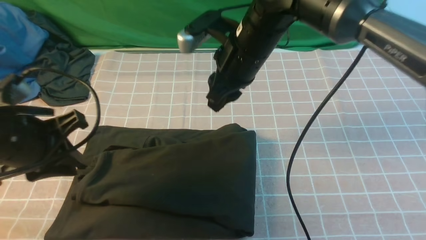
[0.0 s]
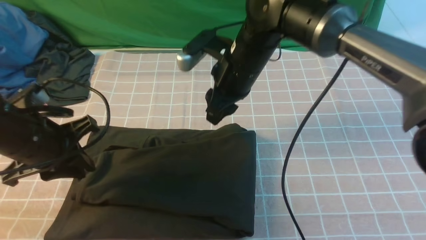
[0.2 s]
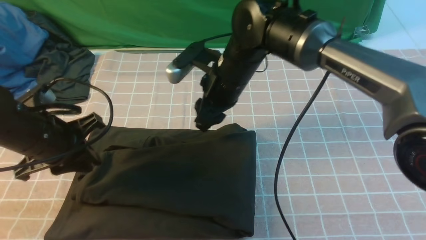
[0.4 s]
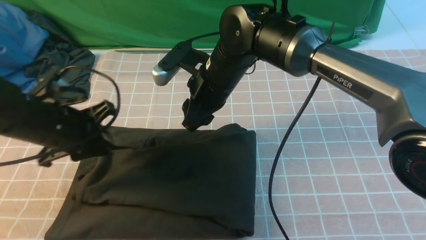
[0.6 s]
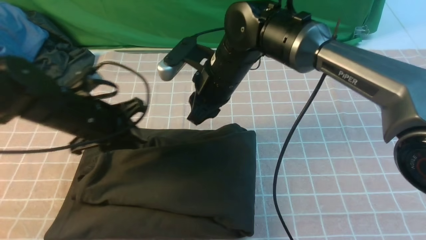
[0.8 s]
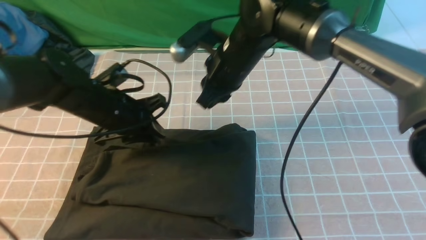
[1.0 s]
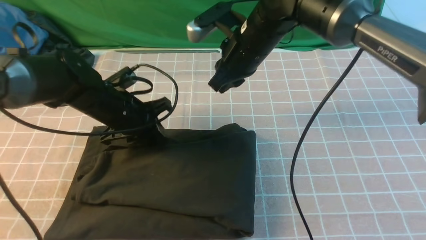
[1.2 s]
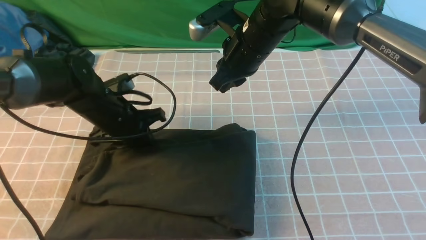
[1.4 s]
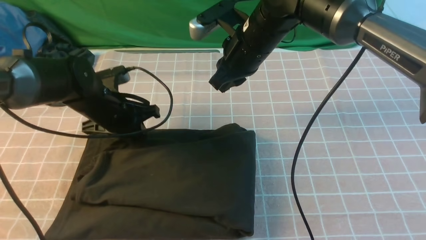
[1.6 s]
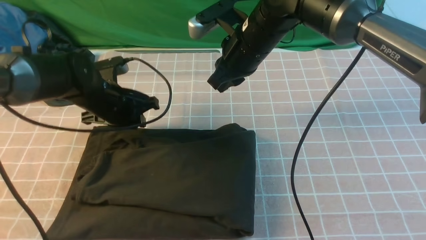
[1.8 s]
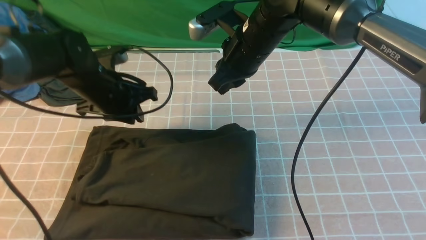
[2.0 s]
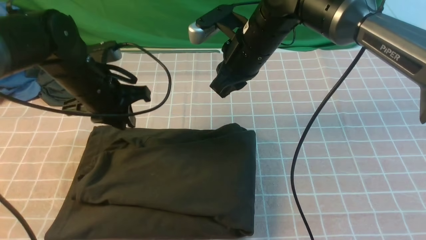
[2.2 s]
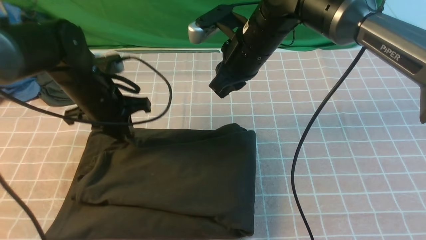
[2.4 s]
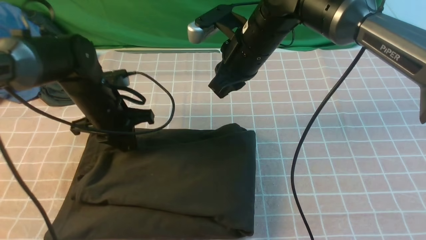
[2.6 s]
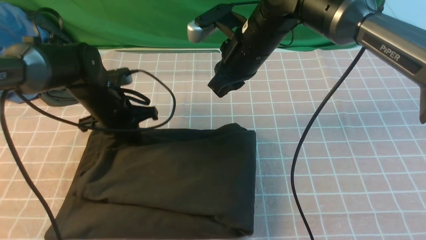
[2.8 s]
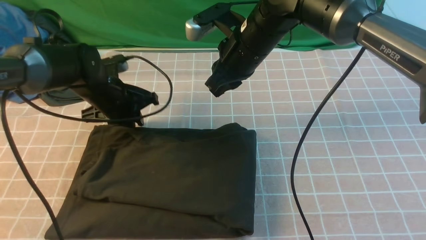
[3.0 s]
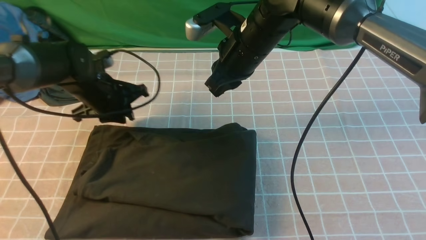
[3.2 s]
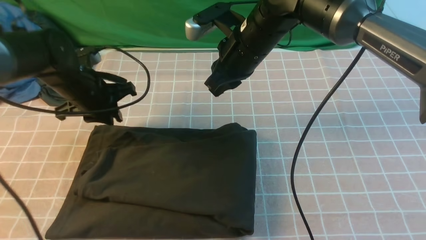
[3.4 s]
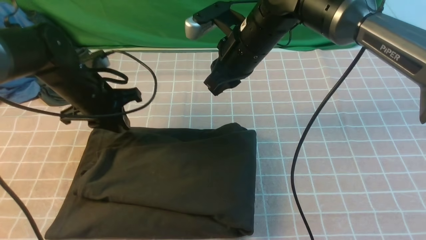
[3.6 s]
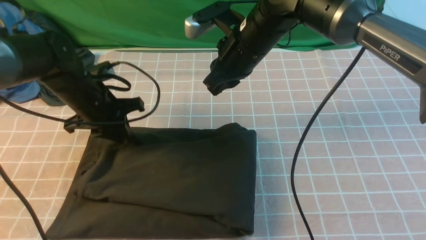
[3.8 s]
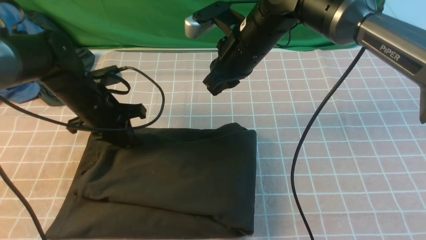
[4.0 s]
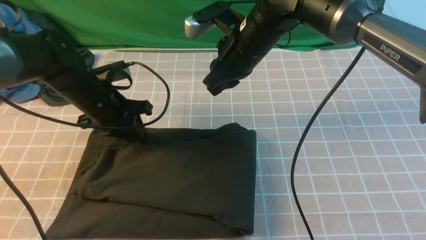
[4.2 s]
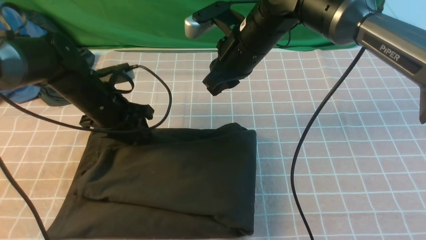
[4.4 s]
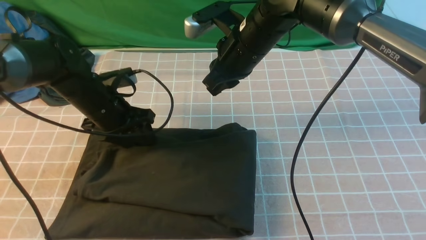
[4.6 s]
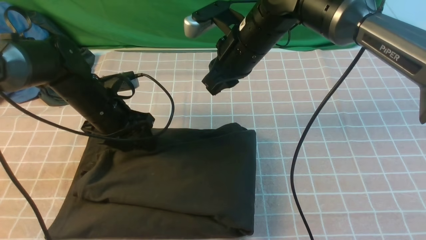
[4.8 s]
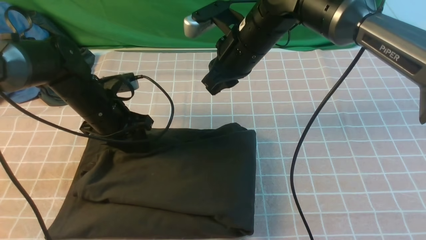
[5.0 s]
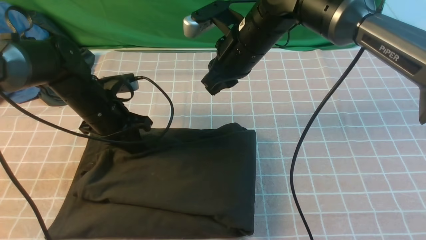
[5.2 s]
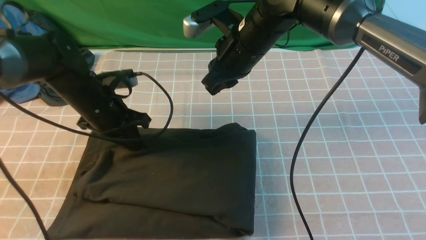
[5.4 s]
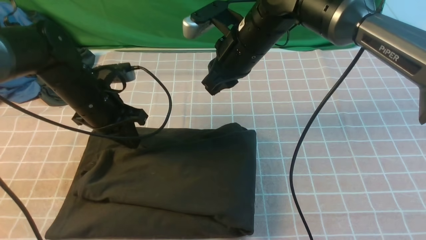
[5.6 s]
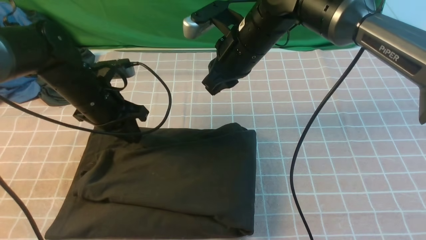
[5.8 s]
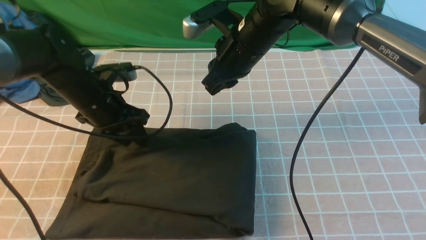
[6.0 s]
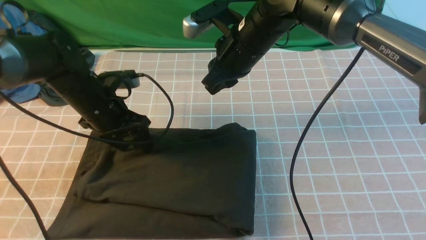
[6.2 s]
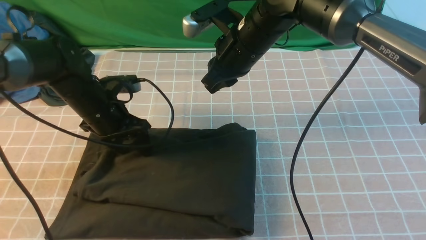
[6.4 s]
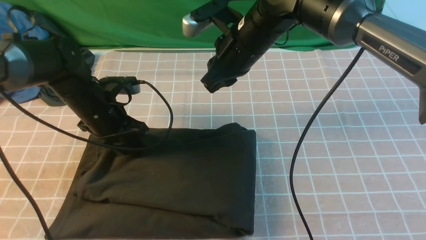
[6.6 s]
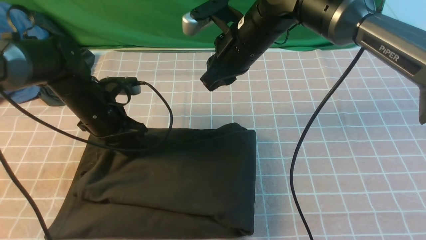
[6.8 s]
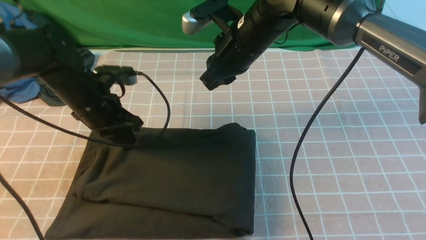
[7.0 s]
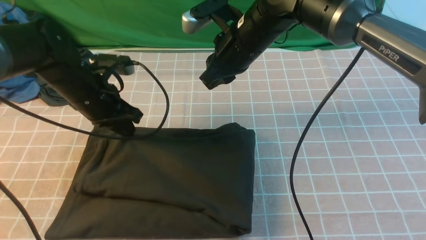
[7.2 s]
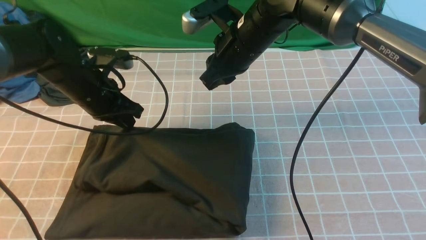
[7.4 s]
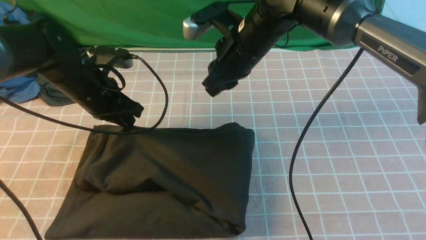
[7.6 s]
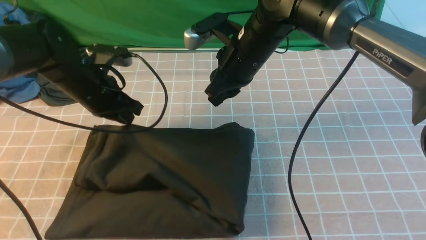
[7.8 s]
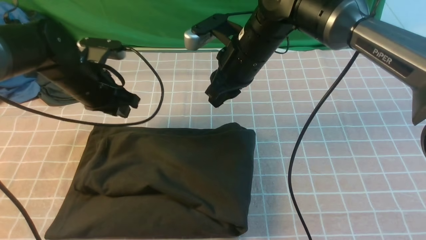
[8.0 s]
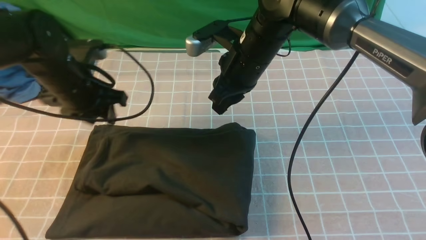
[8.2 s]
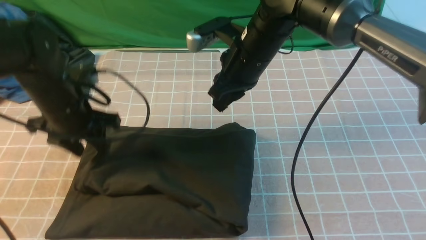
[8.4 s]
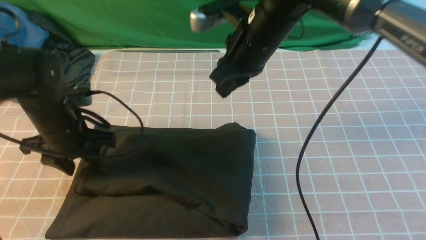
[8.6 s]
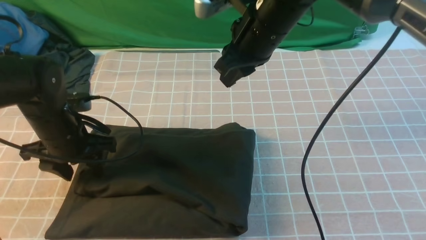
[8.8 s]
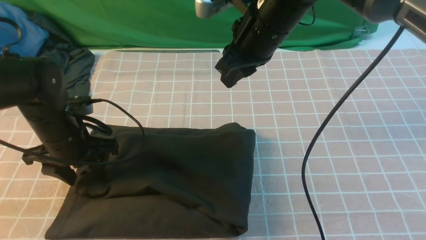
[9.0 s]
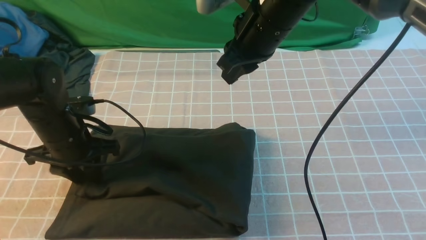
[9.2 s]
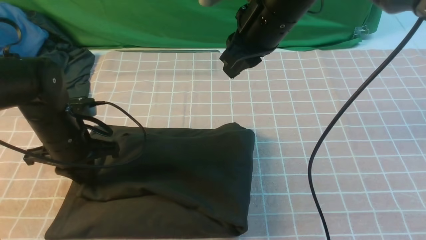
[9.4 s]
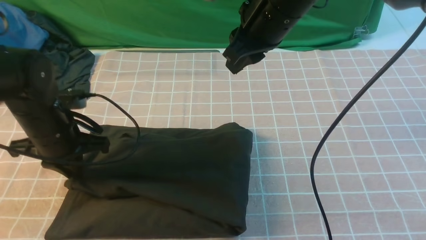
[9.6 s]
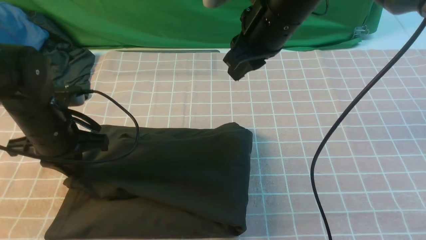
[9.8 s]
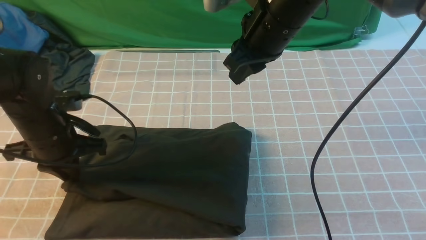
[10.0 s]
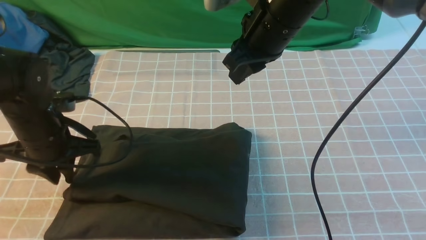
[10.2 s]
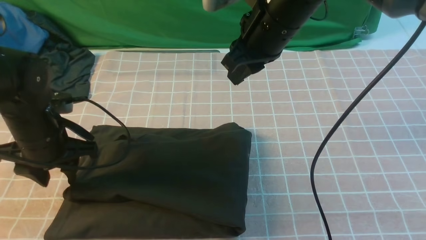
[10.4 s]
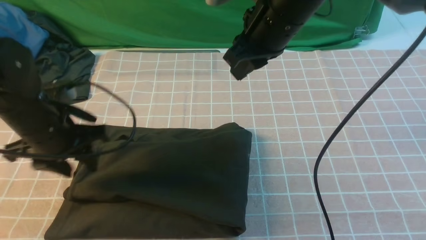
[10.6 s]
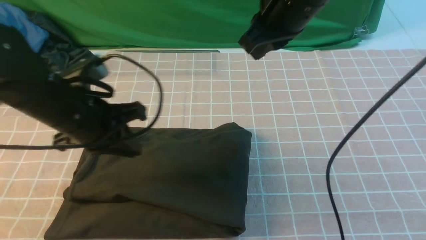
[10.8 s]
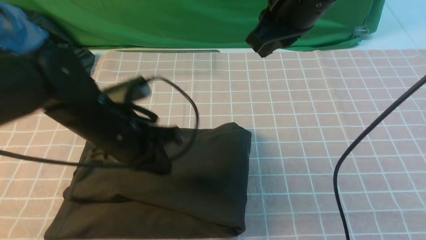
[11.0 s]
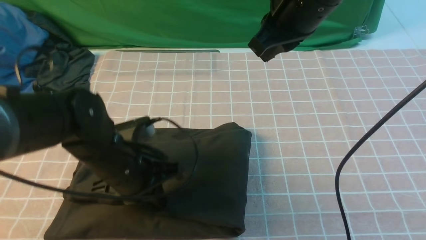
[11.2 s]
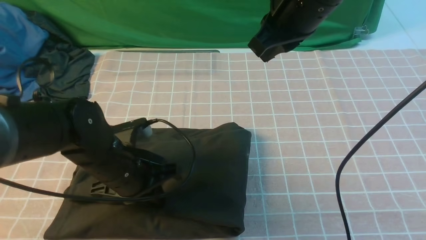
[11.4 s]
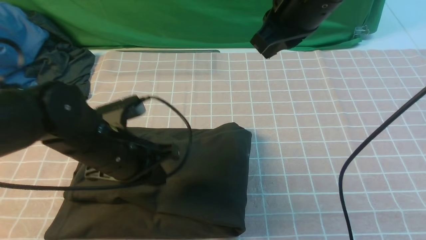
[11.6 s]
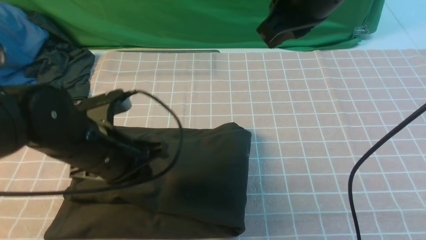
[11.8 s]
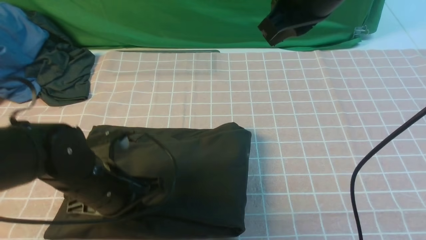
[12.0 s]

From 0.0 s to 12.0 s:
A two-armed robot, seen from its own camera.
From 0.0 s to 1.6 s: The left gripper moves forward and downward, some 20 cm.
From 1.6 s to 3.0 s: There are only small adjustments of the grippers.
From 3.0 s to 4.4 s: The left gripper opens.
From 4.4 s to 6.0 s: The left gripper closes, then opens again.
From 6.0 s to 7.6 s: The left gripper closes.
From 7.6 s to 9.0 s: The left gripper shifts roughly 5 cm backward, and opens its fingers; the right gripper heads upward, covering about 5 cm.
From 9.0 s to 10.4 s: The left gripper closes and opens again.
From 10.4 s to 12.0 s: The right gripper shifts roughly 5 cm upward, while the left gripper travels to the right and backward by about 10 cm, and closes up.

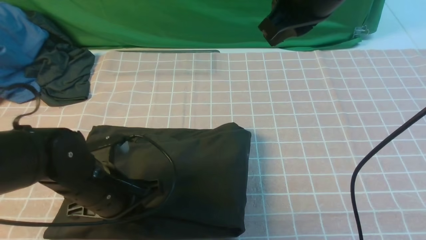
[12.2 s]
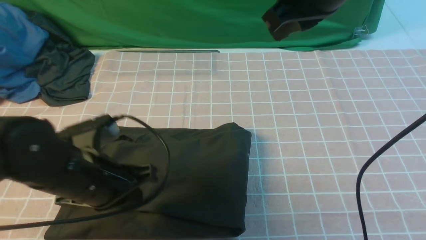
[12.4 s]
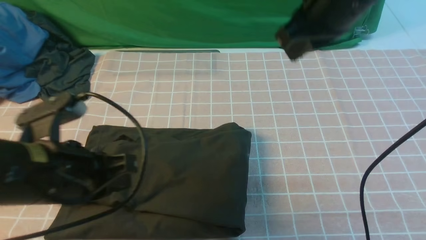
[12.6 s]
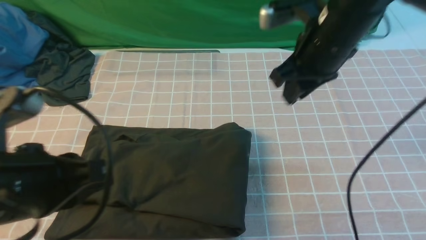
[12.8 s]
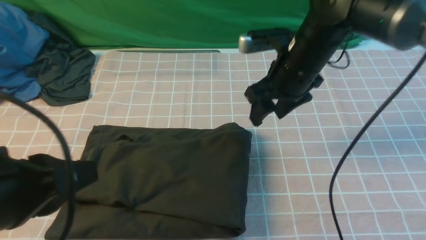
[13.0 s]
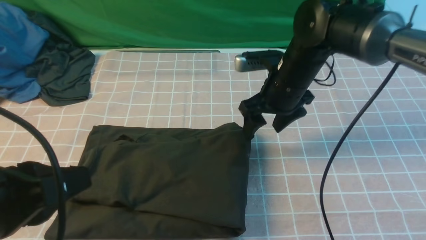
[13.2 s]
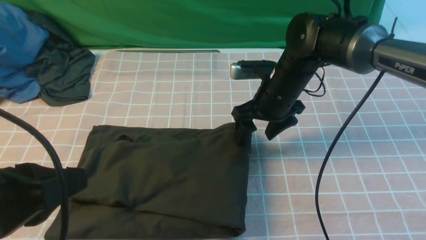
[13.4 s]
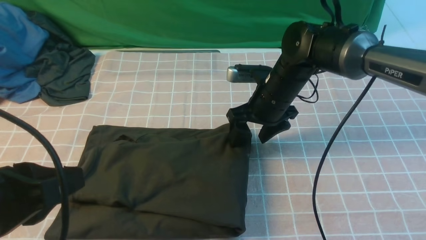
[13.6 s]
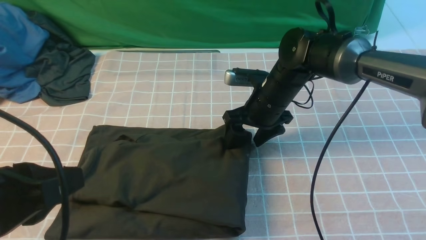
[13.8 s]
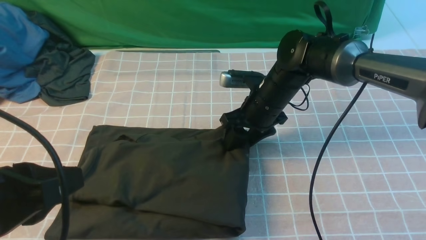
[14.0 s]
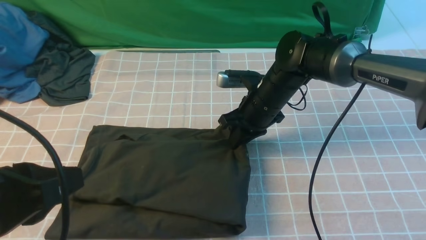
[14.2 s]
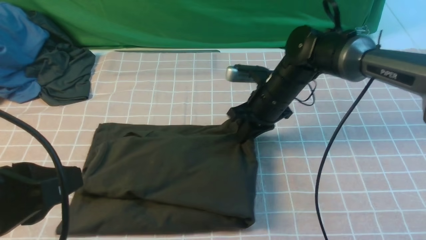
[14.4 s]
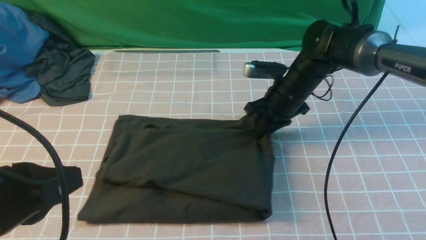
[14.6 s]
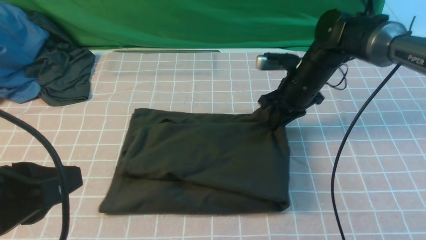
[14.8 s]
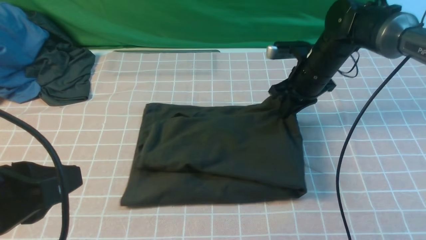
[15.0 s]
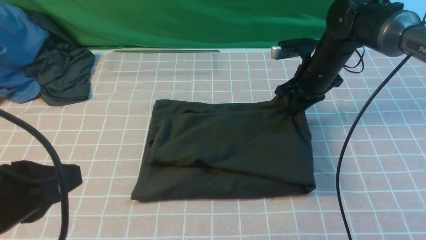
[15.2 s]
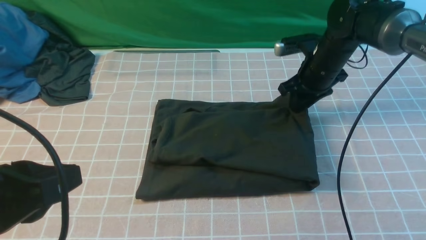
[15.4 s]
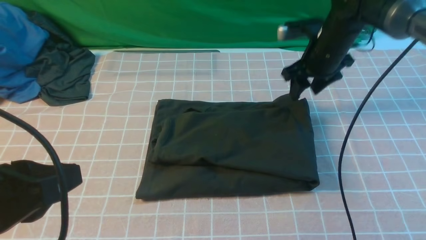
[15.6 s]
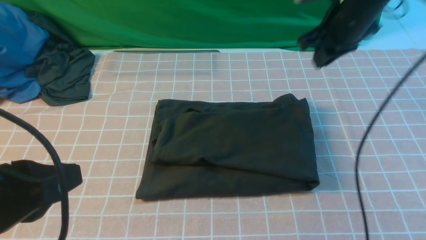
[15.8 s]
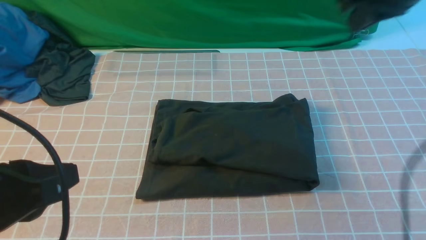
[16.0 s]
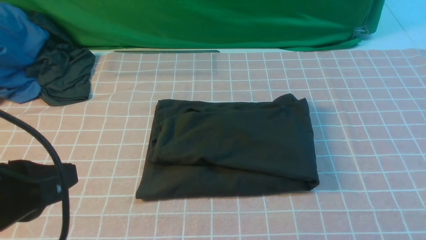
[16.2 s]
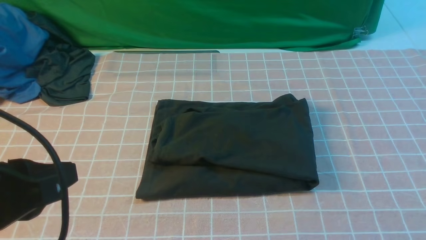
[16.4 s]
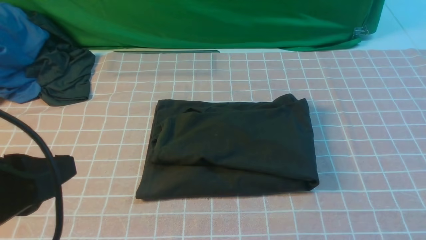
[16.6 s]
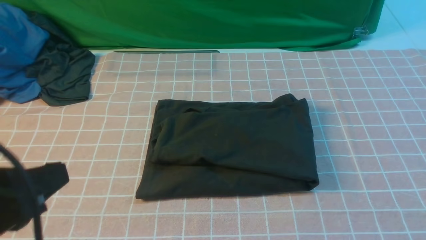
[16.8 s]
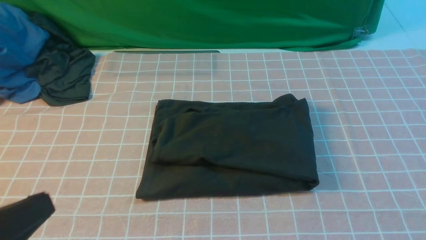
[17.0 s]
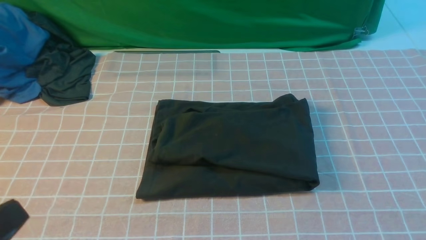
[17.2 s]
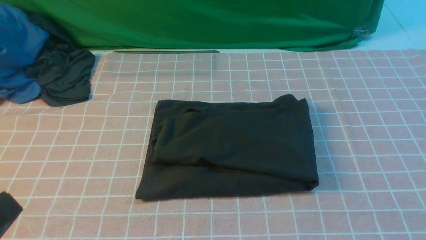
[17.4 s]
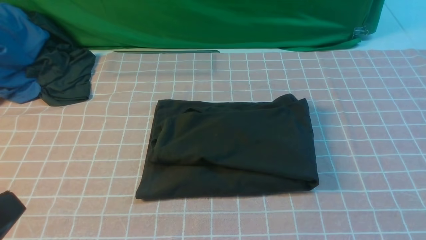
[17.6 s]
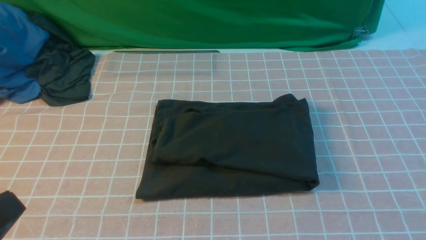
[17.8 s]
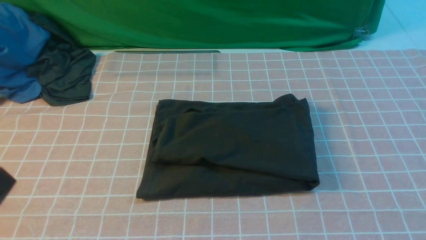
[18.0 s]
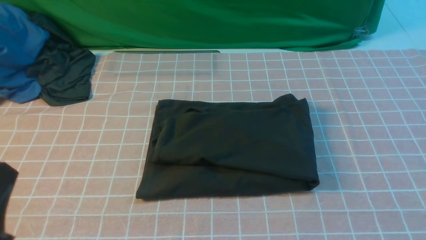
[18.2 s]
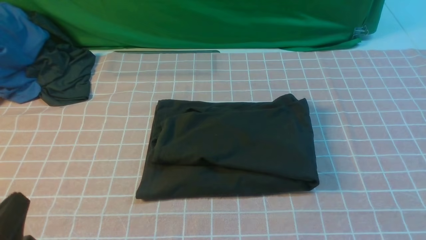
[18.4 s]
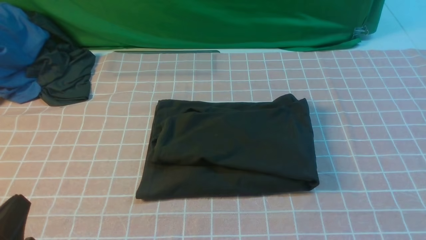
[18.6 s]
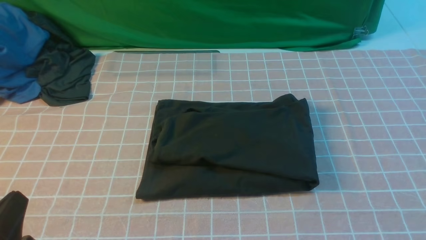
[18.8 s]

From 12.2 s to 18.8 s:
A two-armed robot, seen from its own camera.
From 12.2 s to 13.8 s: The left gripper shifts roughly 20 cm upward and backward, while the right gripper heads downward, covering about 25 cm, and opens its fingers.
From 13.8 s to 15.4 s: The right gripper moves to the right and forward, approximately 10 cm, and closes its fingers.
From 15.4 s to 17.2 s: The right gripper heads backward, covering about 50 cm, and closes up. The left gripper heads backward, covering approximately 10 cm.
